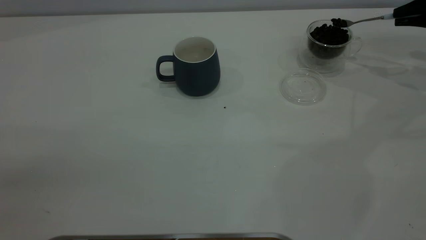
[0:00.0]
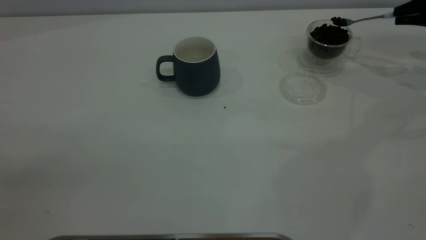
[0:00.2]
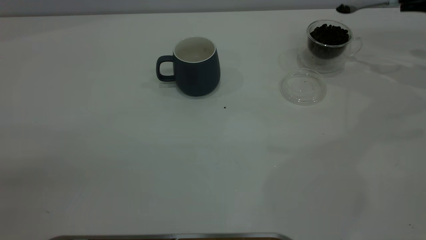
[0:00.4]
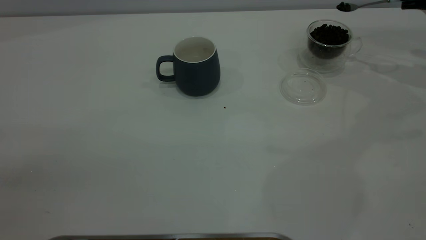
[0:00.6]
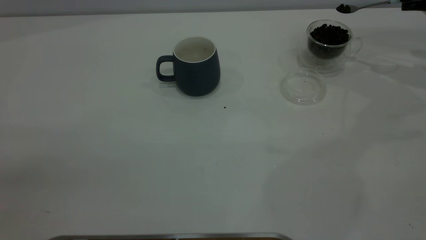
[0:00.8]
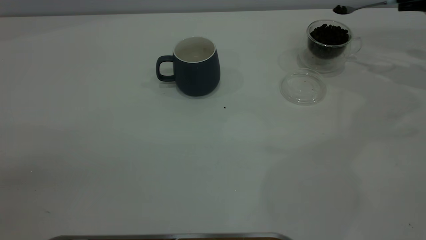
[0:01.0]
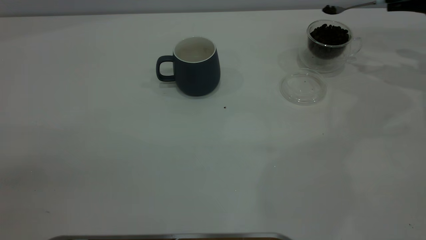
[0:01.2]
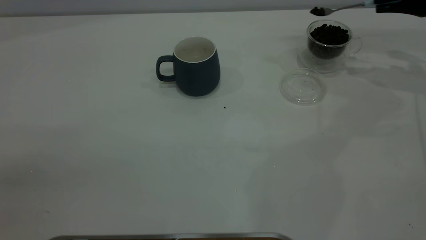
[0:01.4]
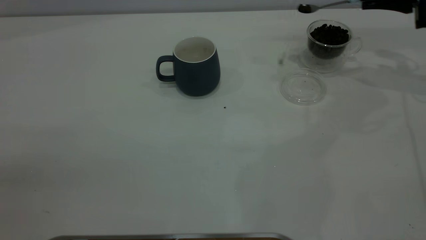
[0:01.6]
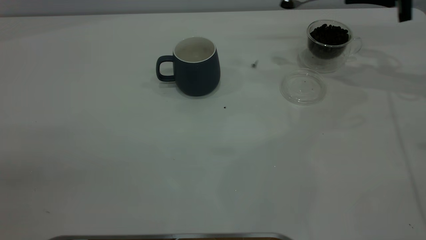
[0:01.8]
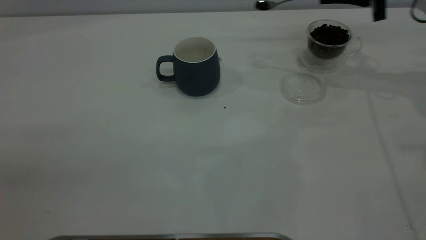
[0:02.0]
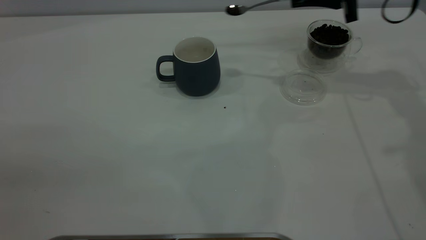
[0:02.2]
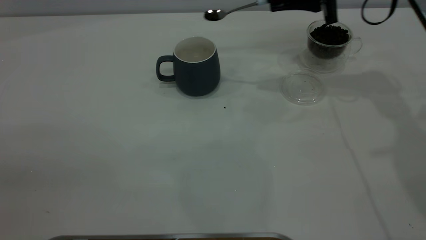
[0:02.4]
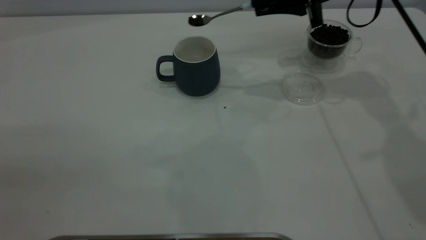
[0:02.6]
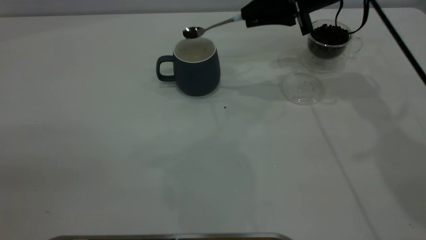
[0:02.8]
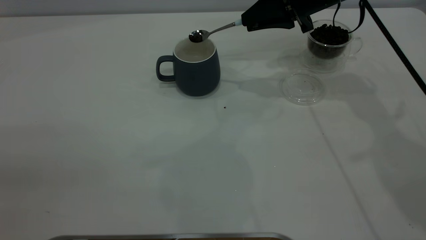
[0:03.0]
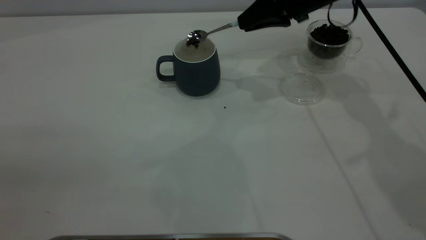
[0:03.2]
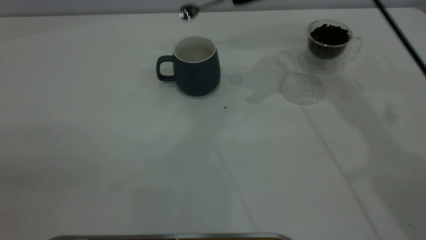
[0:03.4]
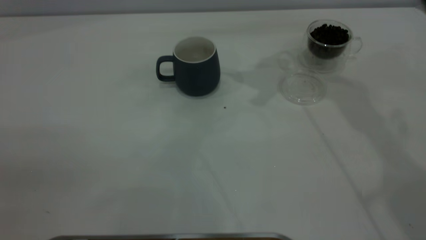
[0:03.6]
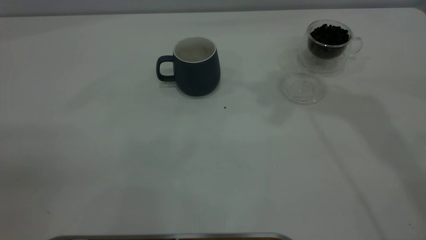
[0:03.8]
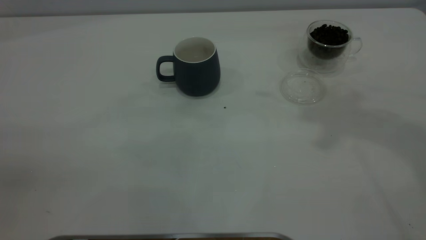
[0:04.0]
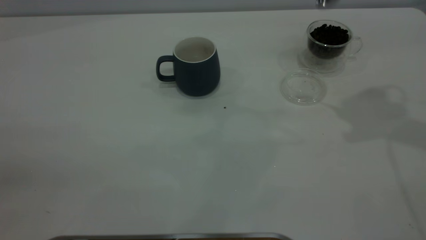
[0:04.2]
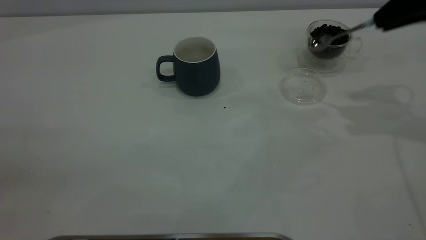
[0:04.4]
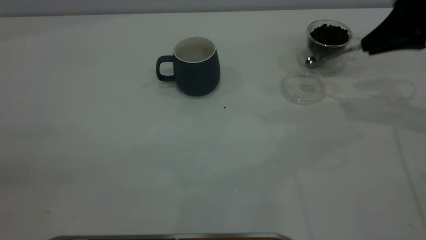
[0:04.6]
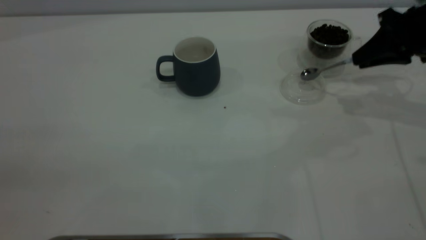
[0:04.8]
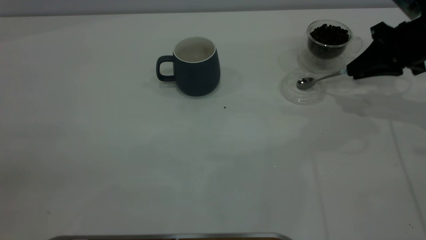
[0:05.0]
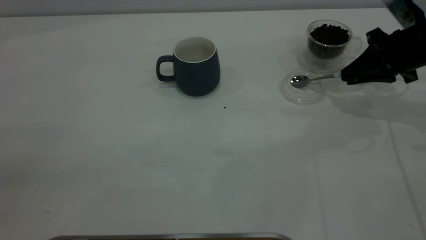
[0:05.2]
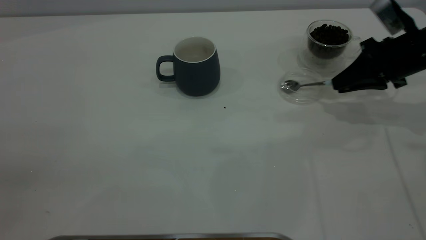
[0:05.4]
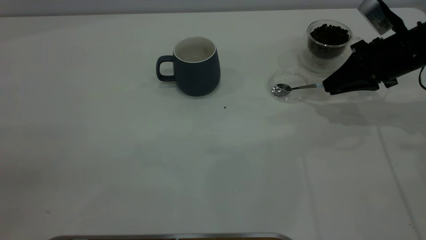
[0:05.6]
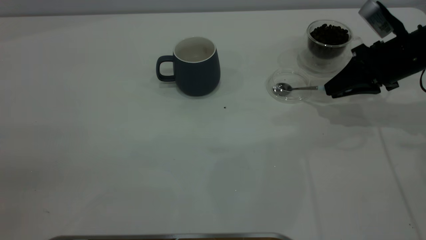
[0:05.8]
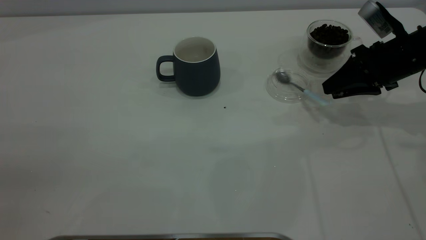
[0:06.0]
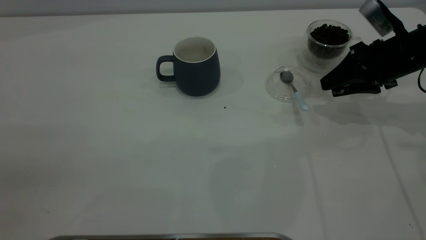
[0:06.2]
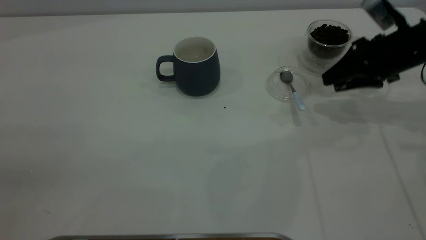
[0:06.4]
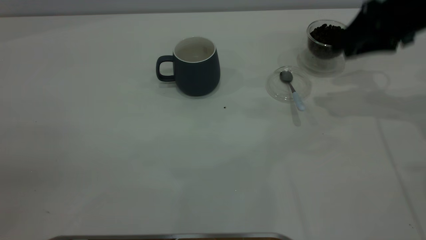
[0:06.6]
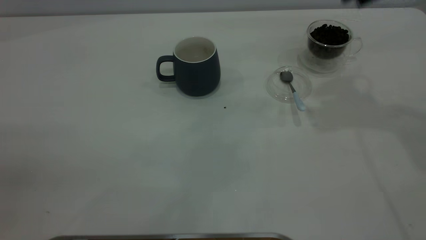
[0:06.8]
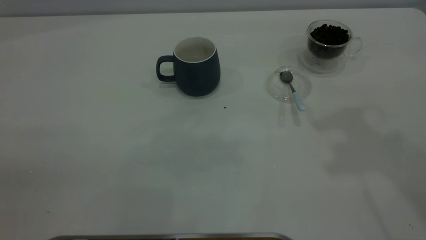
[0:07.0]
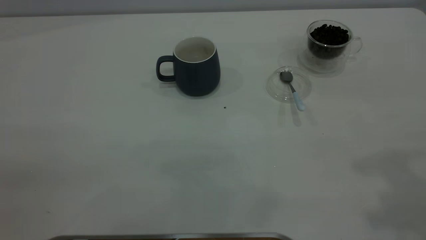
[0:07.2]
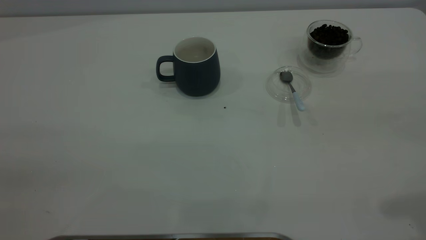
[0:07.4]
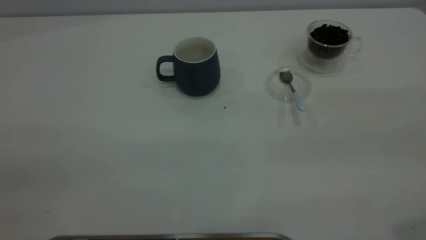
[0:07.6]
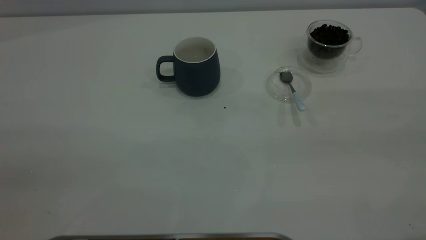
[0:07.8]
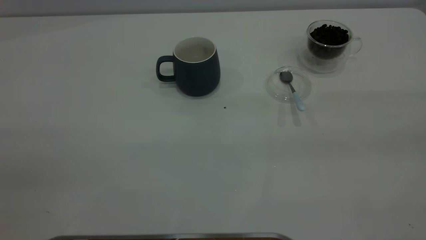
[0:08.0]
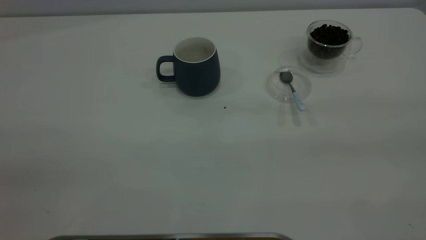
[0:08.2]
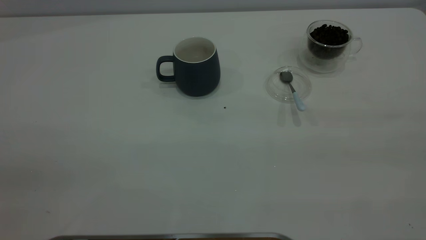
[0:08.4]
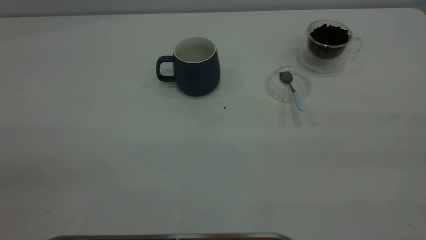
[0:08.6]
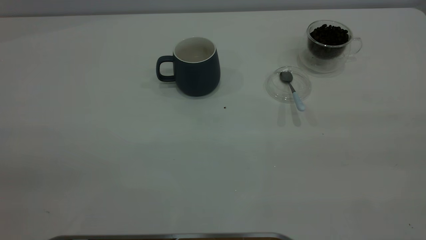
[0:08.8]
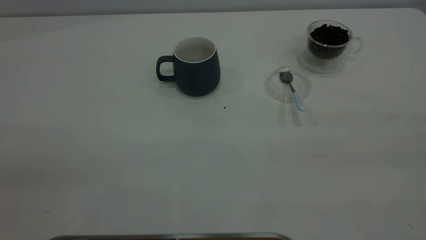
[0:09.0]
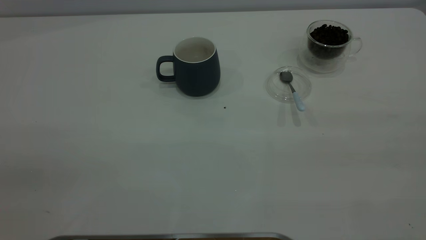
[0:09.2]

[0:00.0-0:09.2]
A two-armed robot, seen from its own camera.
Task of the whole recording: the left gripper place the grey cup in the center of the table, the right gripper take the blue spoon from the cup lid and scoop out the coffee beans from the coffee cup and put them into the grey cup, the right gripper put the spoon back into the cup lid.
Step, 0:00.0 to 0:03.2: Scoop a spoonful of beans into the cup.
Step, 0:03.6 to 0:06.4: Place the spoon back in its original place.
0:00.0 to 0:01.6: The right gripper heads to the left, covering about 5 cm.
0:01.6 to 0:03.0: The right gripper is displaced to the left by approximately 20 cm.
0:03.0 to 0:04.6: The right gripper is displaced to the right and backward by approximately 15 cm, and moves roughly 25 cm upward and comes back.
0:04.6 to 0:06.2: The right gripper travels downward by about 10 cm, and opens up.
0:06.2 to 0:07.6: The right gripper is displaced backward and upward by roughly 35 cm.

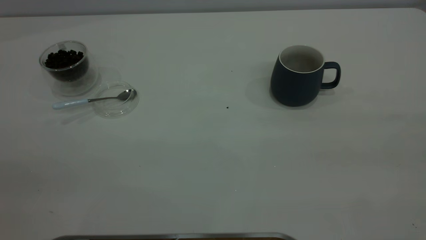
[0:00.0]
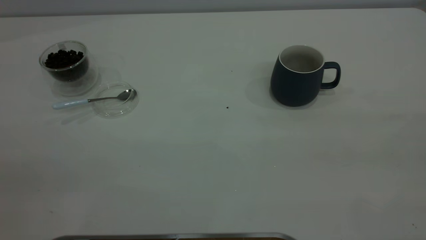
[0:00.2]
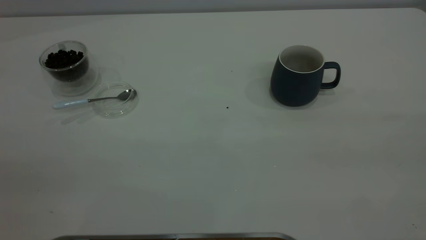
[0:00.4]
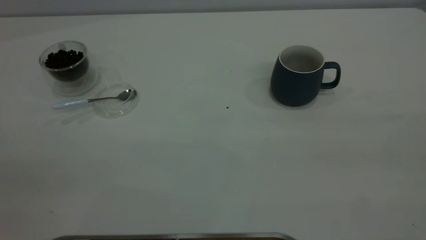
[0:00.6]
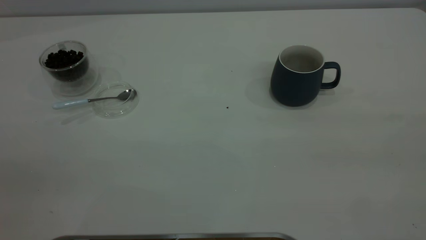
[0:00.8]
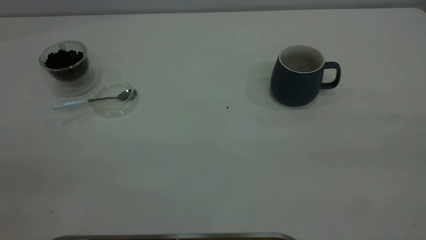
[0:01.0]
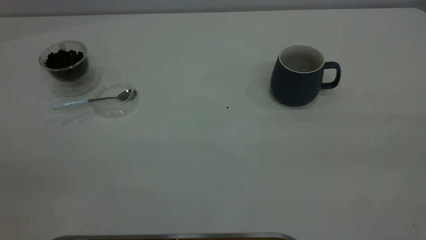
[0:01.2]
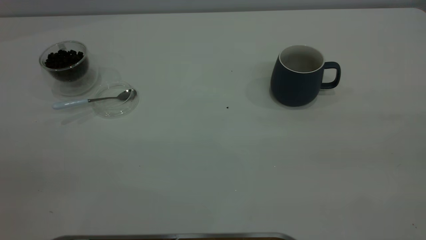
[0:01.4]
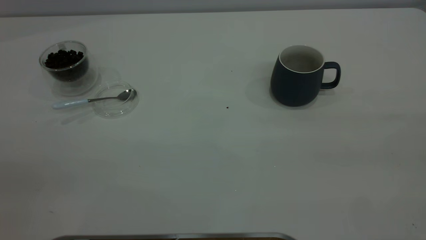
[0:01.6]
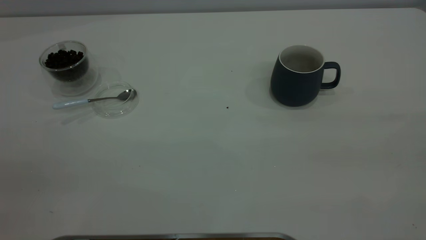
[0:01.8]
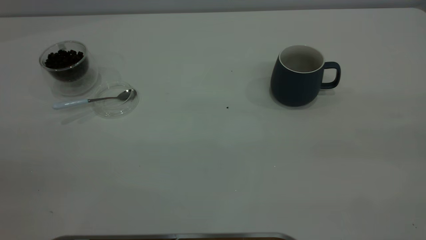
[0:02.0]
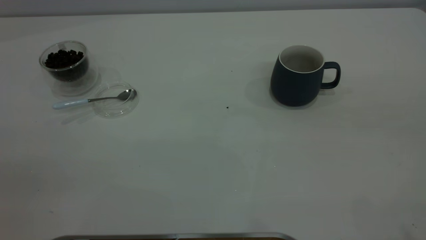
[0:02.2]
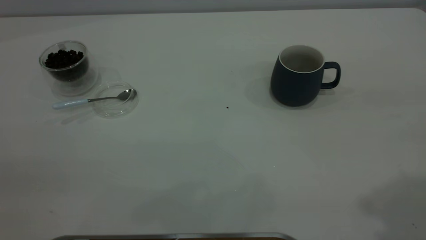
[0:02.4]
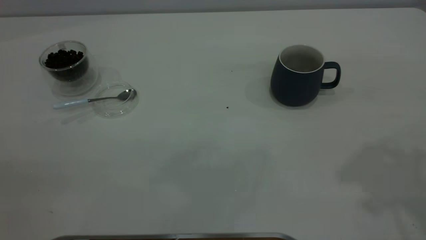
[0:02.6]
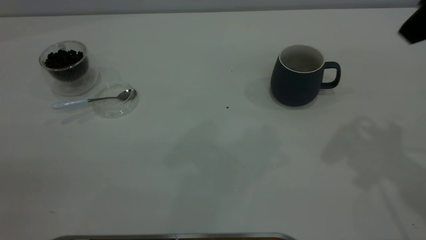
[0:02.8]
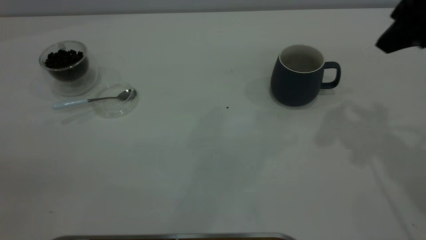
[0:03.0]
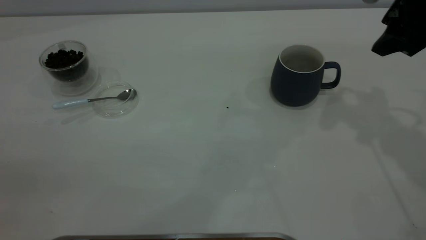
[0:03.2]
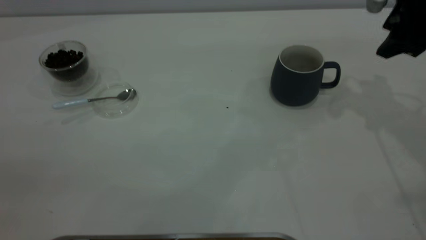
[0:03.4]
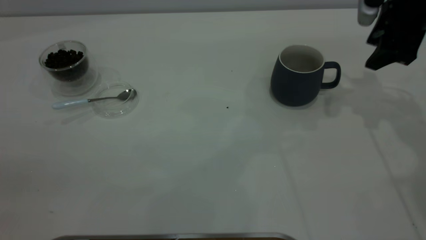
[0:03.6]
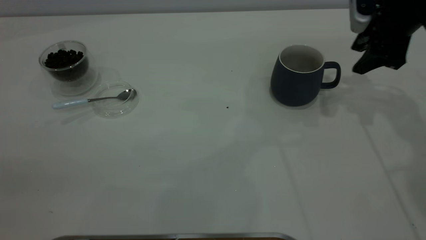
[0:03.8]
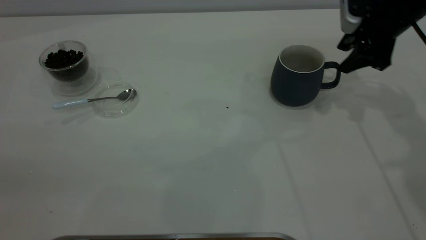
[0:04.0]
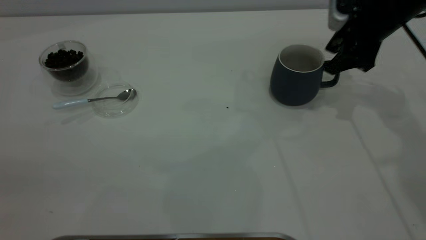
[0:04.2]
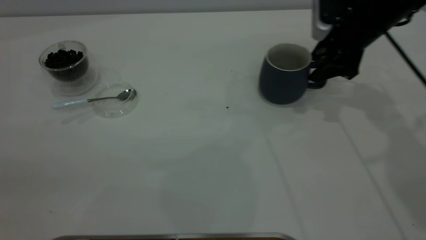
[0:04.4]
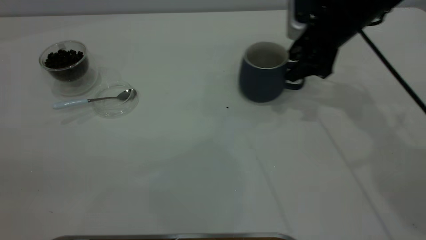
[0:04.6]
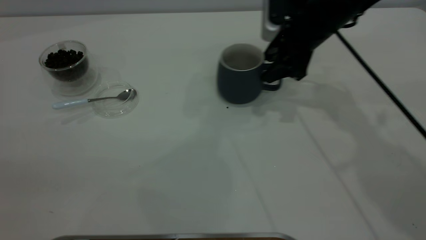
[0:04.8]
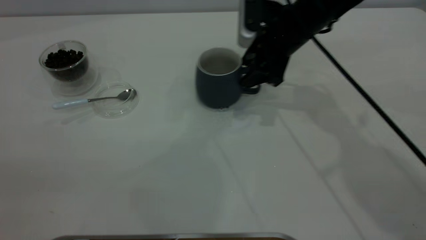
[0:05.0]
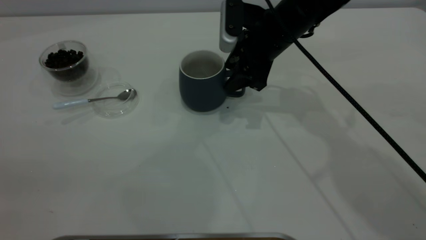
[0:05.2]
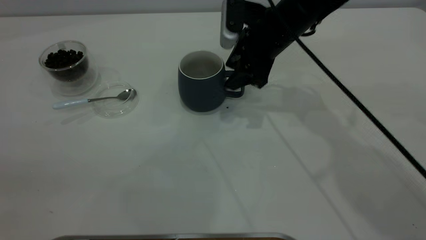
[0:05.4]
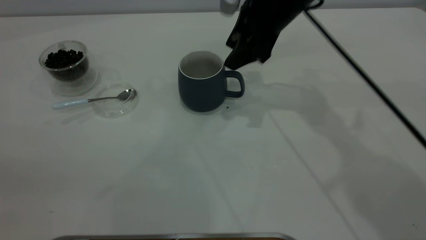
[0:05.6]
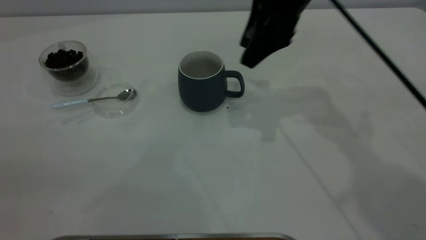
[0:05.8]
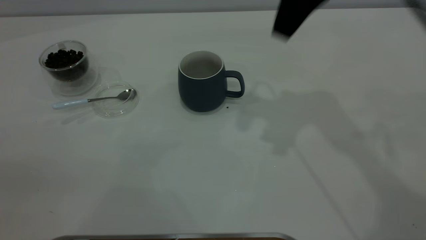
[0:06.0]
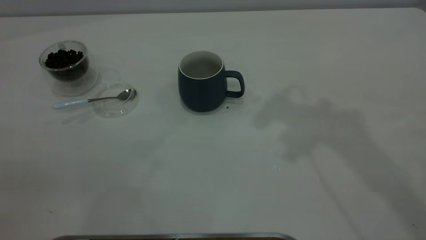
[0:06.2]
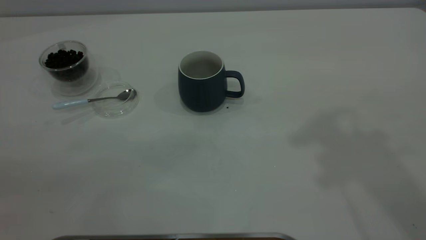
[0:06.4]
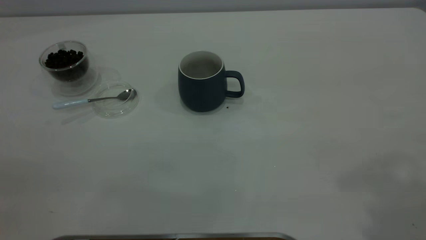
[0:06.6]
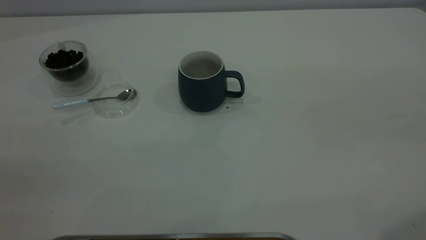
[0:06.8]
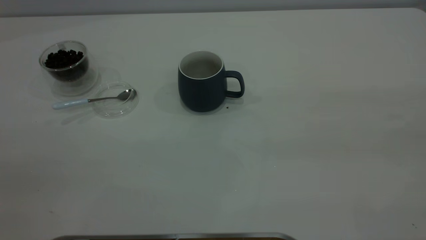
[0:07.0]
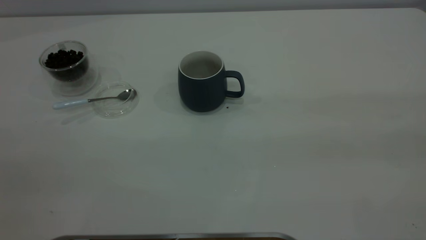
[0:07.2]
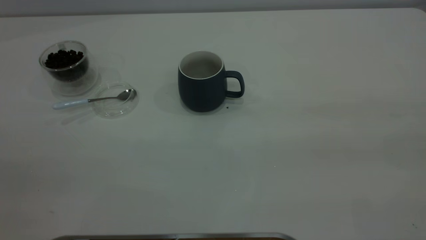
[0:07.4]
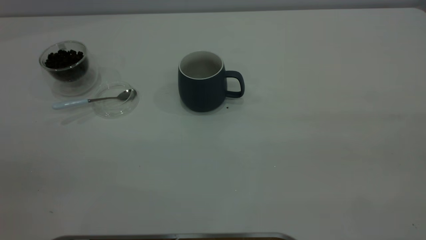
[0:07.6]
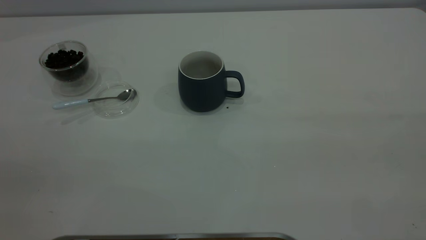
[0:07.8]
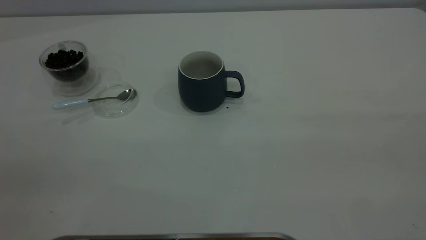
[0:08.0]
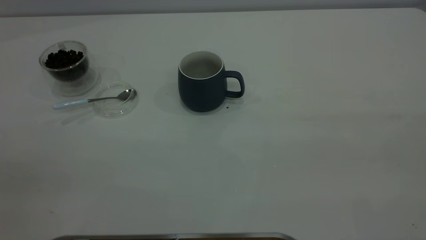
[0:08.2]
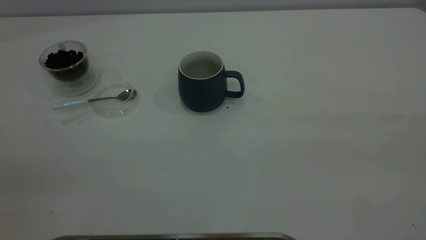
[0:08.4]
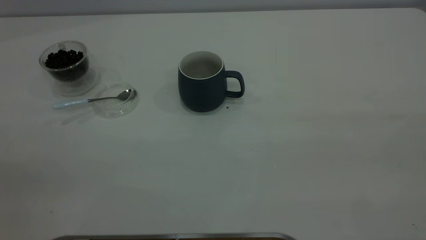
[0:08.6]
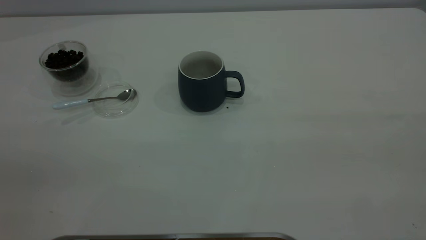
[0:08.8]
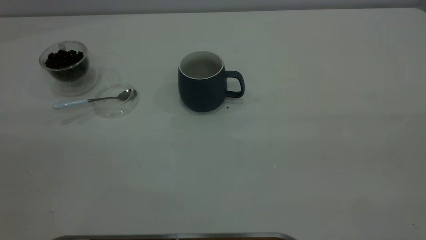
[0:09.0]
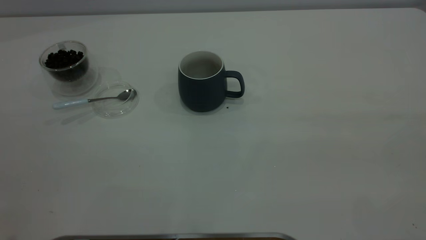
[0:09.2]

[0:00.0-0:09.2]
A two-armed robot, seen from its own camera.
Task of the whole recording: the right gripper place the grey cup in the center of the table, the left gripper take the blue spoon from the cup lid and scoop out the coffee beans from the coffee cup and put them into the grey cup, the left gripper put the spoon back into the cup lid.
Step, 0:00.0 to 0:05.8: Move the cup to the center of view.
0:00.0 to 0:01.6: Both grippers stay about where they are.
0:01.6 to 0:03.0: The right gripper shifts some 30 cm forward.
0:03.0 to 0:04.6: The right gripper goes roughly 20 cm downward, forward and to the left.
0:04.6 to 0:06.2: The right gripper shifts roughly 30 cm upward.
